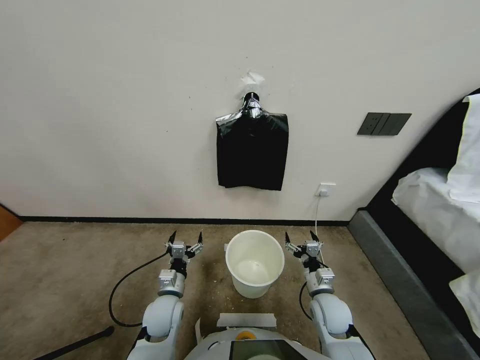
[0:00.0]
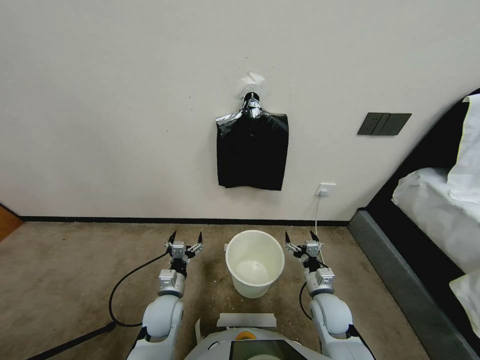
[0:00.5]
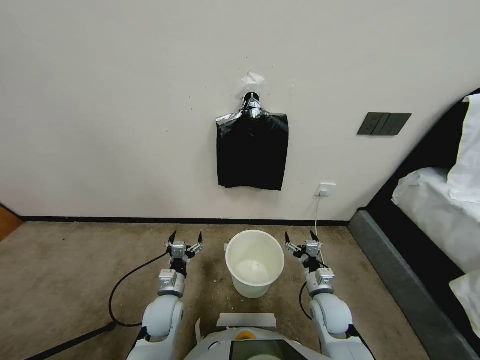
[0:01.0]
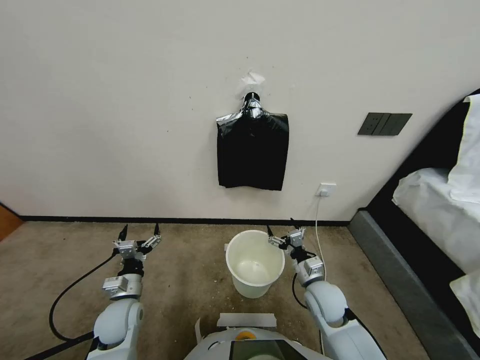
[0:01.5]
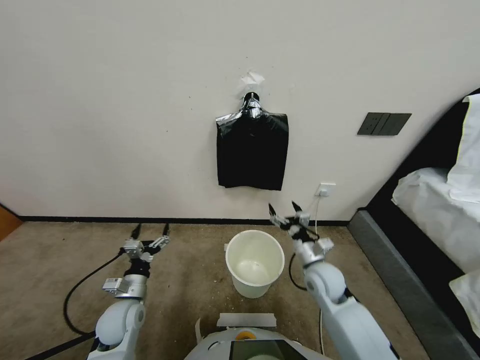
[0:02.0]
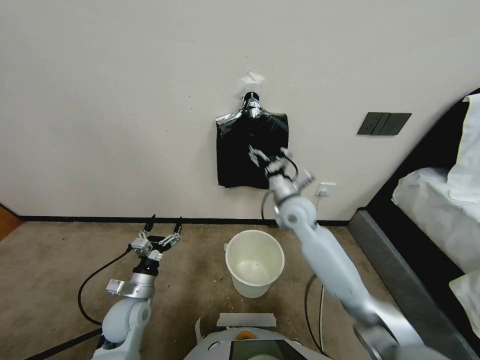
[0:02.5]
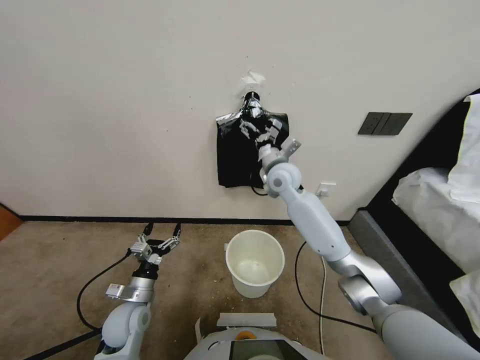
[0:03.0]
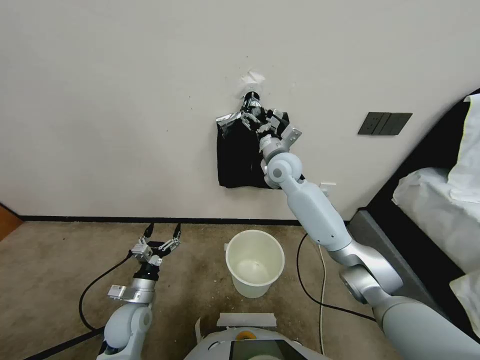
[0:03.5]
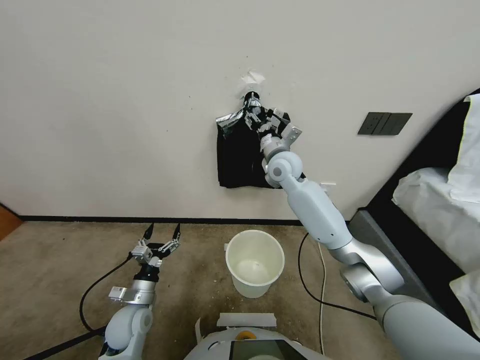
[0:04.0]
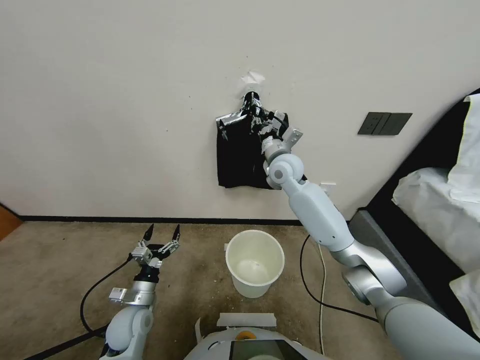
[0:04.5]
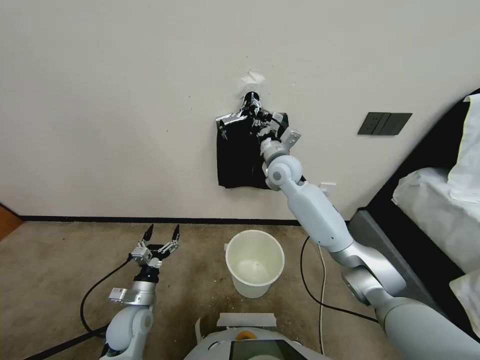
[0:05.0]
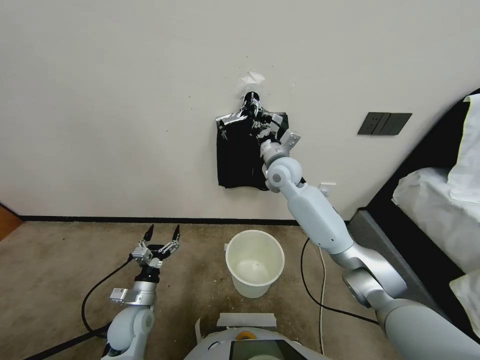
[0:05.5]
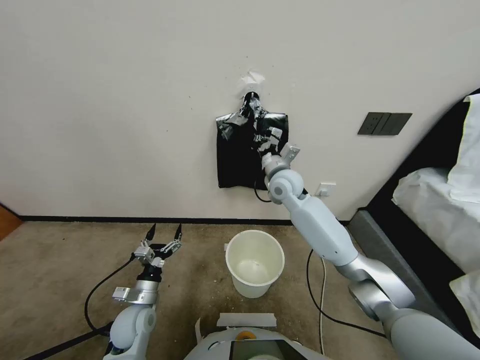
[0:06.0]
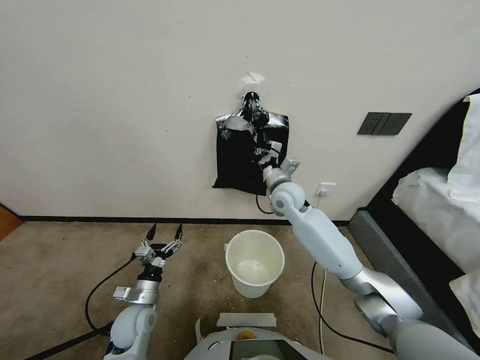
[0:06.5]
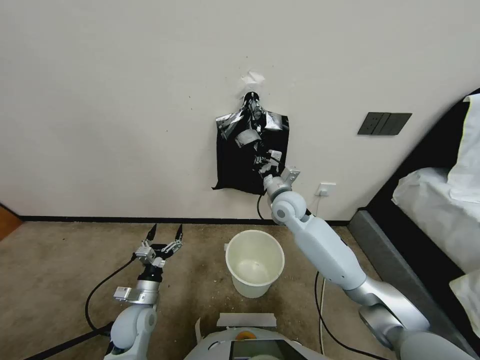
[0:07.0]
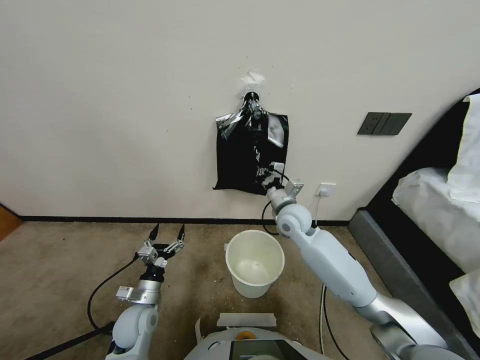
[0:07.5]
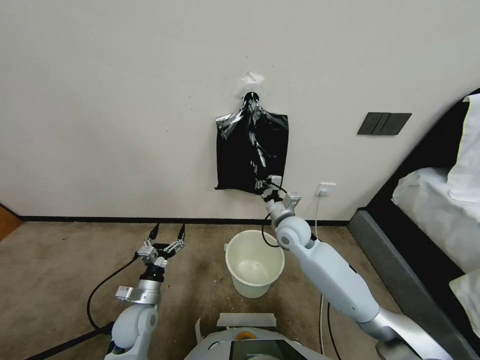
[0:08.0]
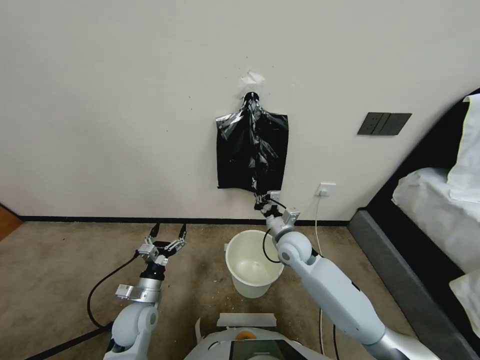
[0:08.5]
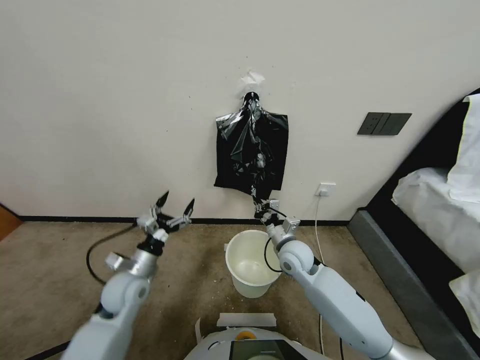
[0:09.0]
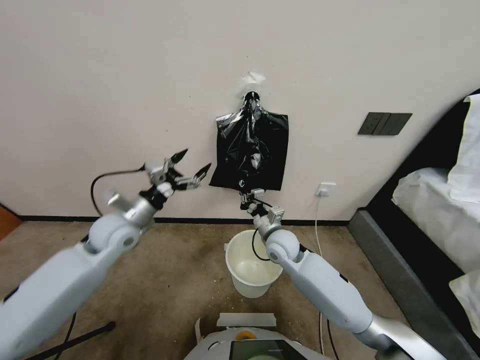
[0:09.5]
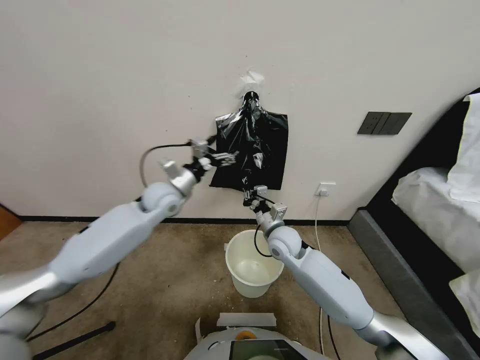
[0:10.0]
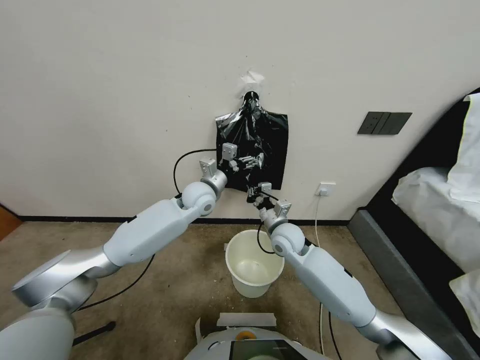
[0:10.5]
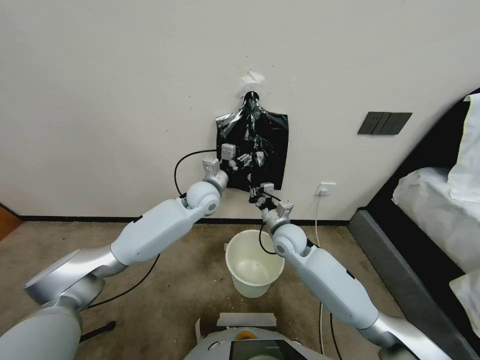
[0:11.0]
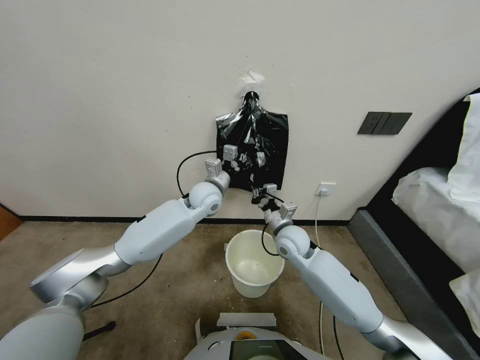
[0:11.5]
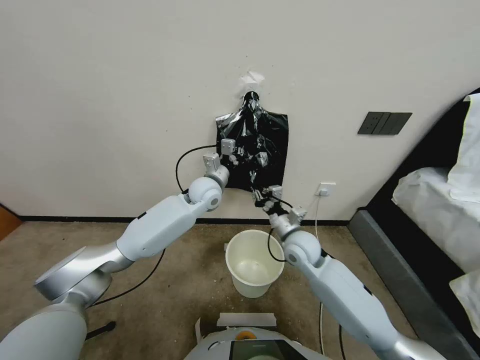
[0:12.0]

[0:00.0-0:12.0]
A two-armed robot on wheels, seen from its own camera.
Task of the whole recording: Place a trash bag onto the trash bin.
0:02.0 to 0:04.0: The right gripper heads forward, upward and to the left, covering roughly 30 cm, and closes its fingers.
0:04.0 to 0:06.0: The right gripper heads downward, covering about 5 cm, and closes its fingers.
0:06.0 to 0:08.0: The right gripper goes some 15 cm downward and backward.
0:08.0 to 0:10.0: The left gripper is displaced forward, upward and to the right by roughly 35 cm.
0:10.0 to 0:12.0: The grippers both shift to the right by approximately 5 cm. The right gripper opens; the left gripper closes up.

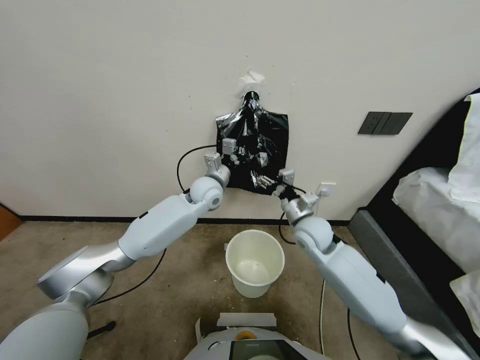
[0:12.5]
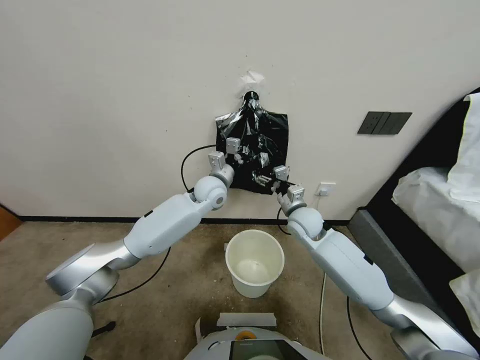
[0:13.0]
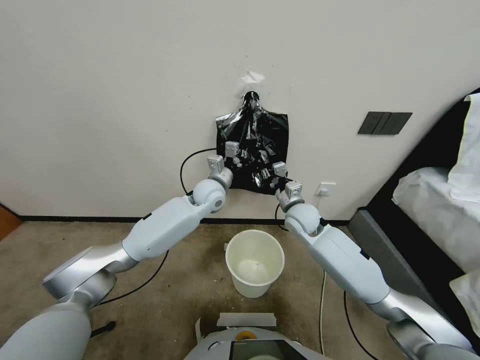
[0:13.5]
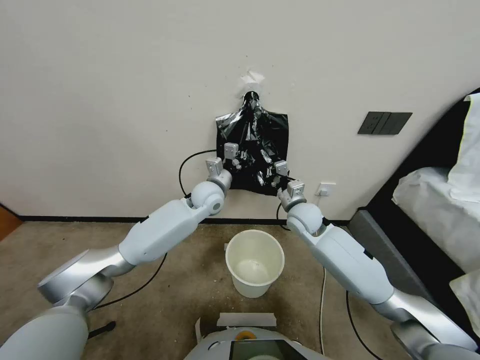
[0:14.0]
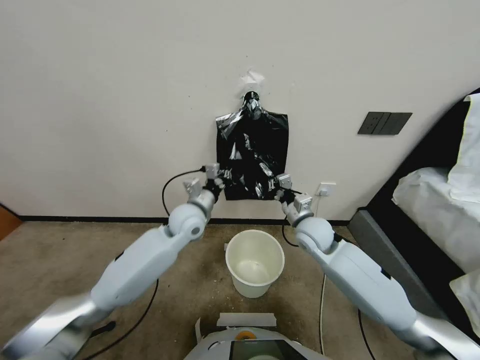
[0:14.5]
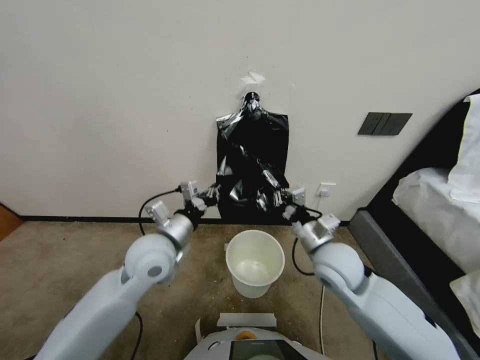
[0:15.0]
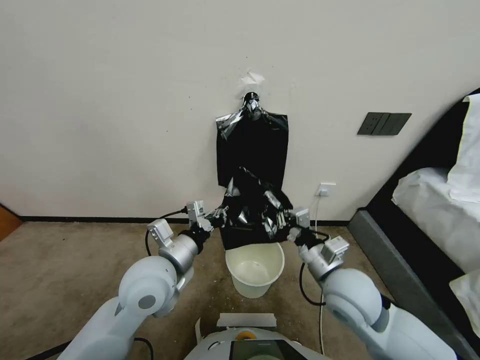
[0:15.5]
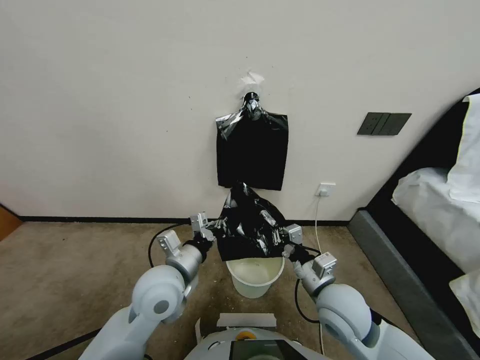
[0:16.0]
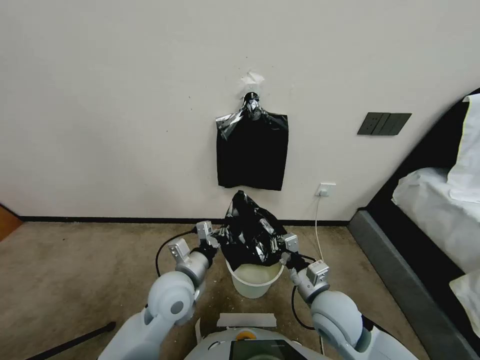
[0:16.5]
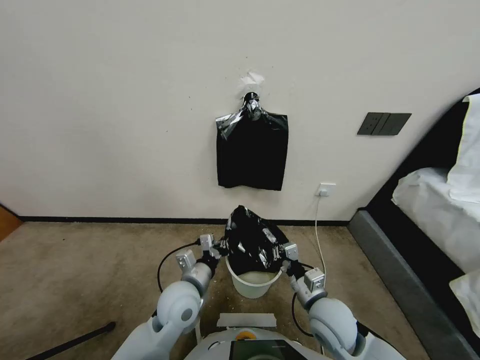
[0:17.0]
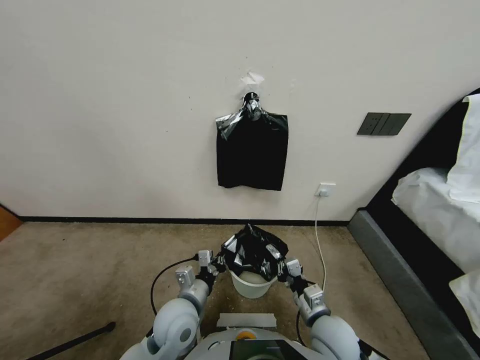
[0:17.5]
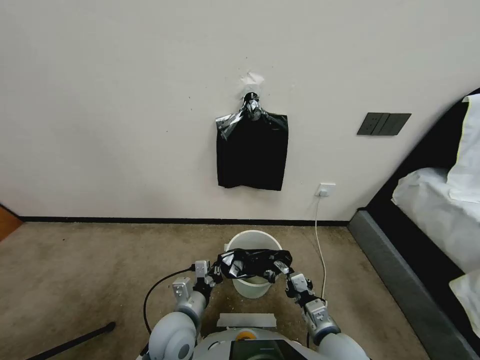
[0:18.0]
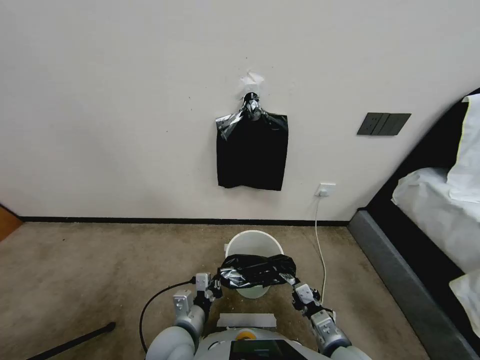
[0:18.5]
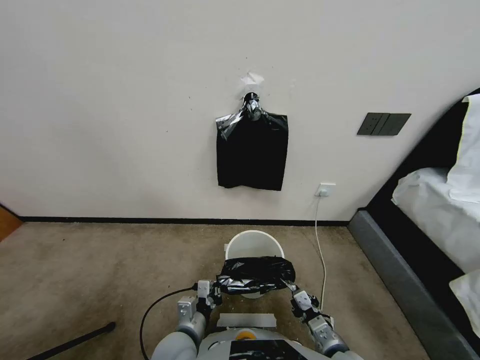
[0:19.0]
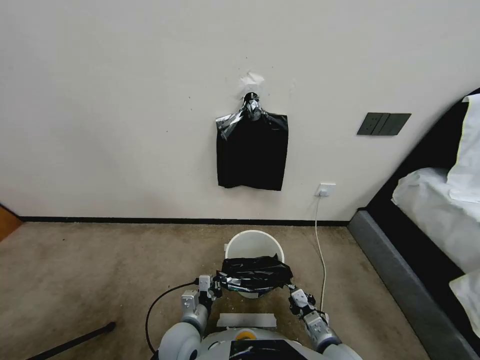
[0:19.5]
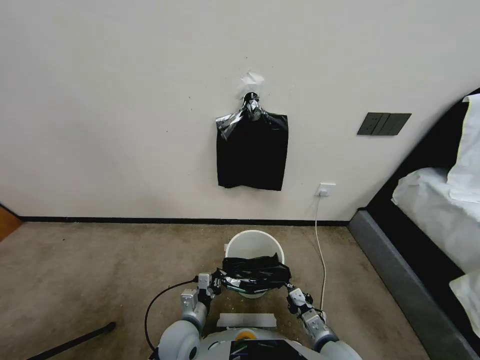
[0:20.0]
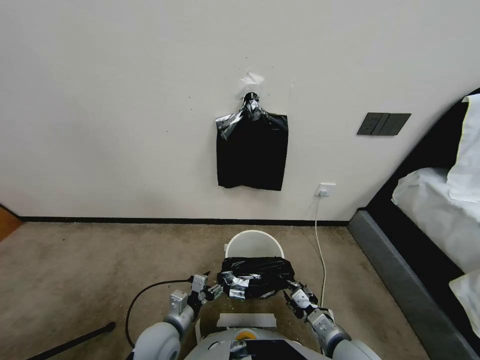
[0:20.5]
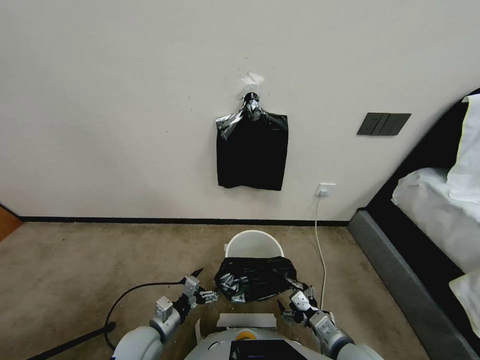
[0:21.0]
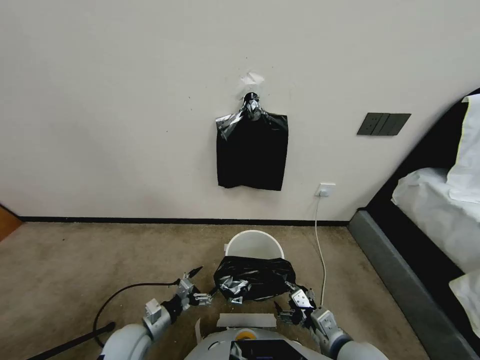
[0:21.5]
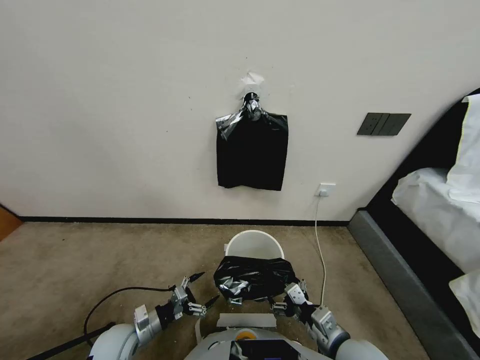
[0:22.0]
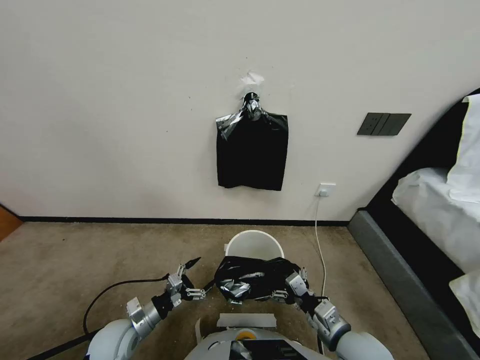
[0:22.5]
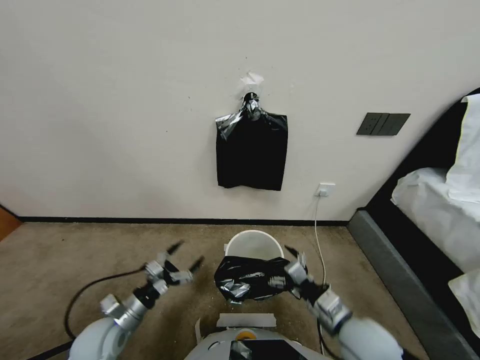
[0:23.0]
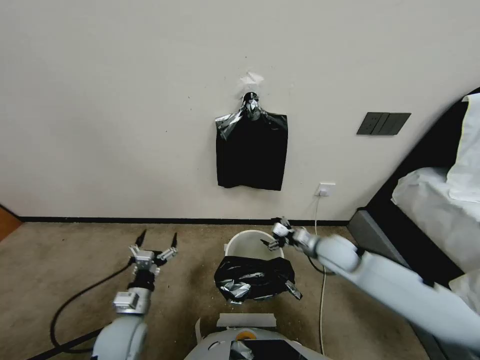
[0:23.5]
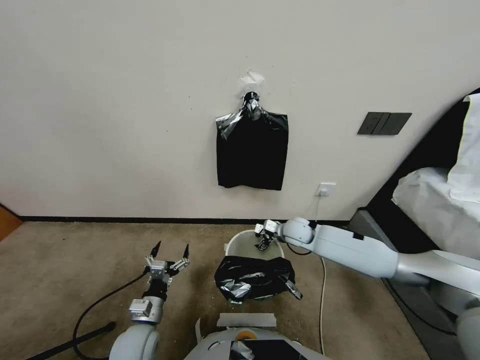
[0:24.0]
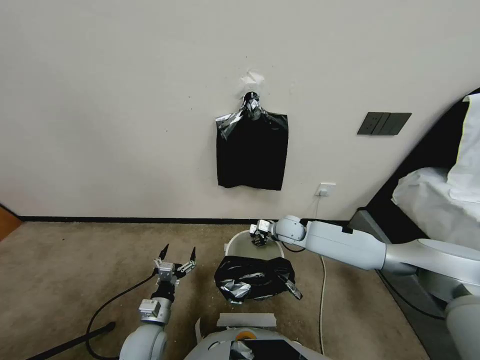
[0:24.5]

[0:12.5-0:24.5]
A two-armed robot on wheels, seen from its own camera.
Task of the whole recording: Place a trash bag onto the trash bin.
0:12.5 to 0:14.5: The right gripper closes its fingers; the left gripper goes approximately 15 cm backward and to the left.
0:14.5 to 0:16.5: The two grippers go about 15 cm backward and downward.
0:16.5 to 0:18.5: The grippers both shift backward and downward by some 10 cm.
0:18.5 to 0:20.5: The left gripper moves to the left, about 5 cm, and opens up. Meanwhile the right gripper opens up.
0:20.5 to 0:22.5: The left gripper shifts about 10 cm to the left.
0:22.5 to 0:24.5: The left gripper is displaced to the right by approximately 5 cm; the right gripper is displaced forward by approximately 35 cm, and closes its fingers.

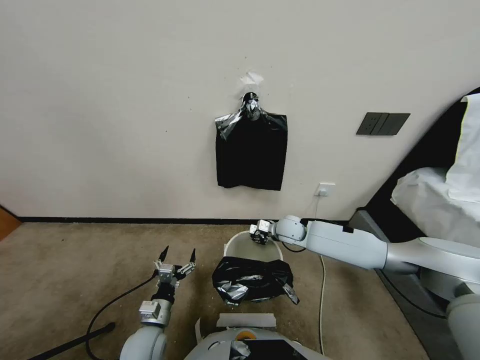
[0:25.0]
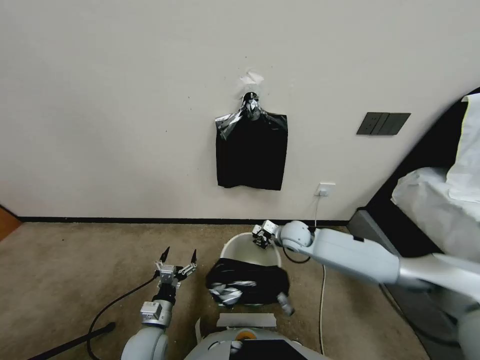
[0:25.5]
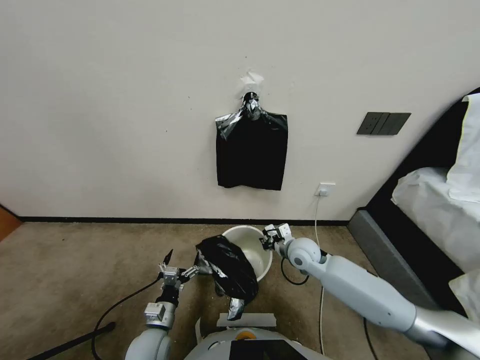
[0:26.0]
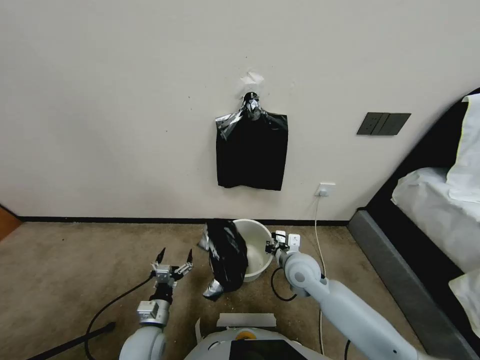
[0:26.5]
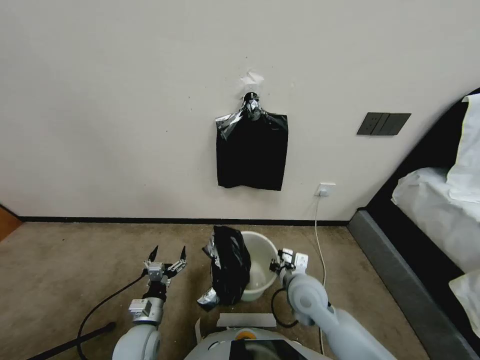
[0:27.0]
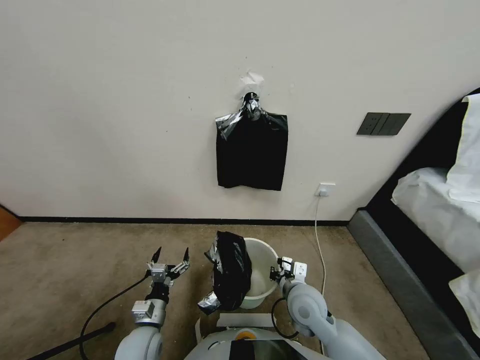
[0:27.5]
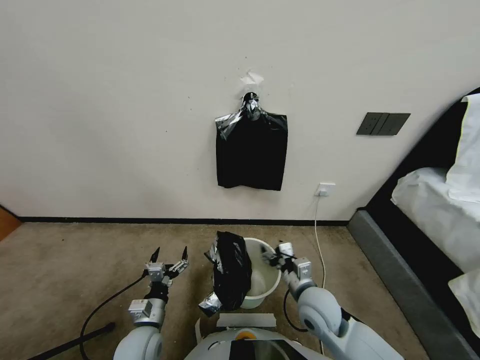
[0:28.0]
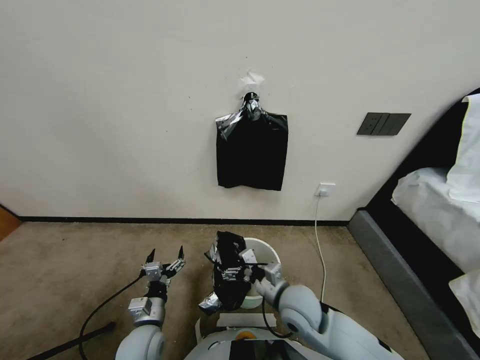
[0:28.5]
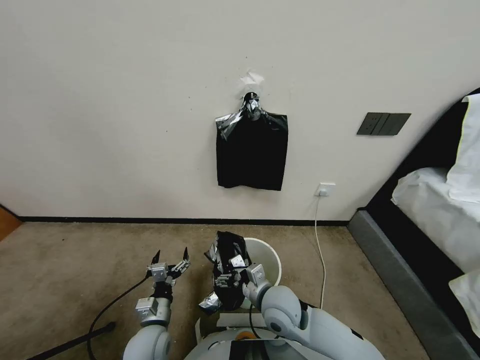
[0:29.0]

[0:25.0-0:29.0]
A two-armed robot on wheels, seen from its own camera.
Task of the whole recording: Place a trash bag onto the trash bin.
0:25.0 to 0:27.0: The right gripper travels backward by some 20 cm.
0:27.0 to 0:29.0: The right gripper moves to the left, about 5 cm, and opens its fingers.
